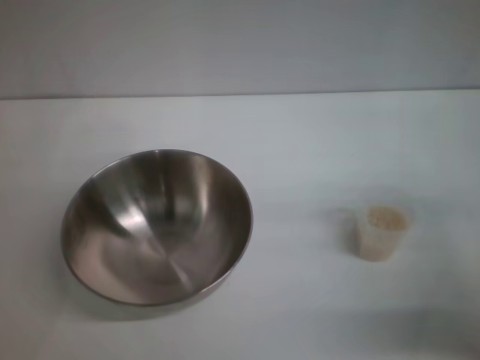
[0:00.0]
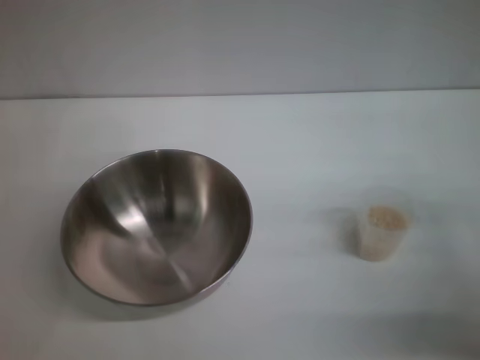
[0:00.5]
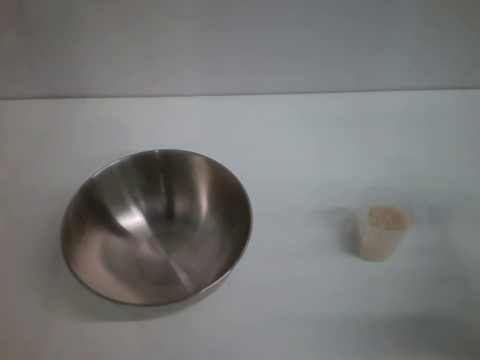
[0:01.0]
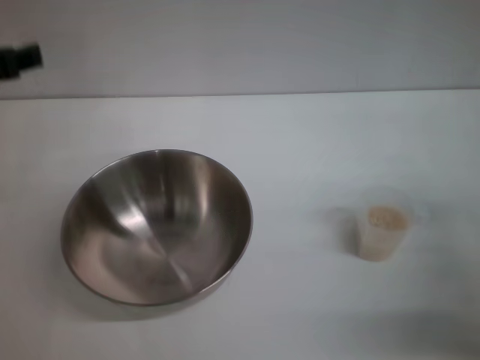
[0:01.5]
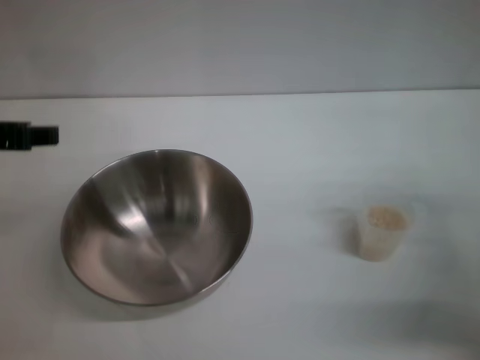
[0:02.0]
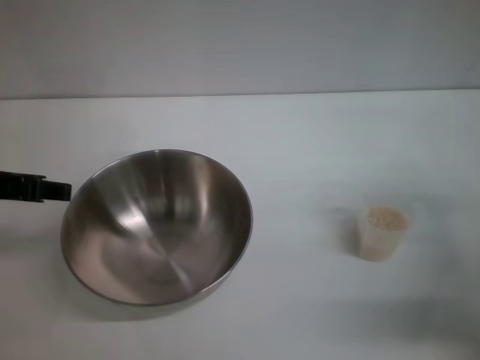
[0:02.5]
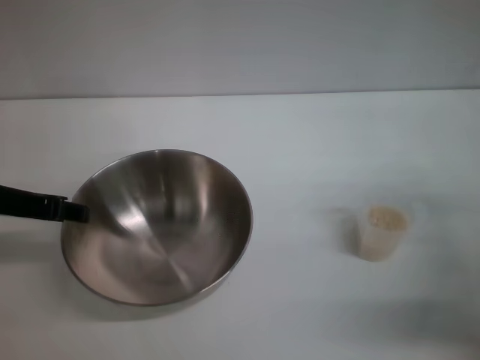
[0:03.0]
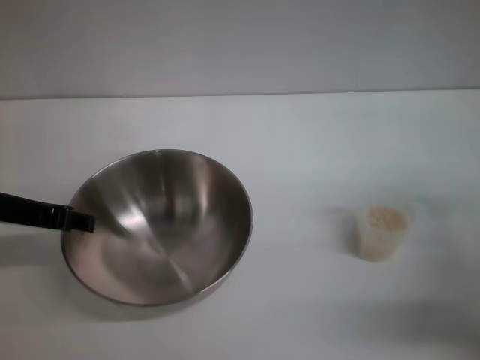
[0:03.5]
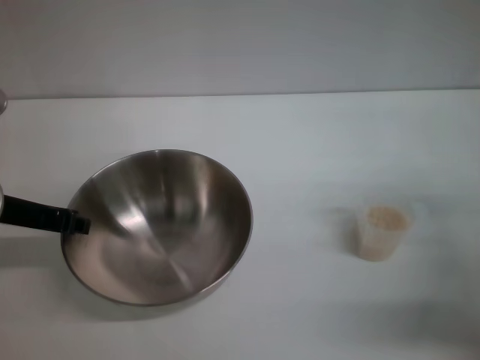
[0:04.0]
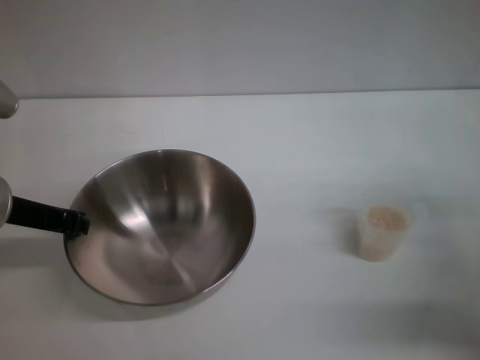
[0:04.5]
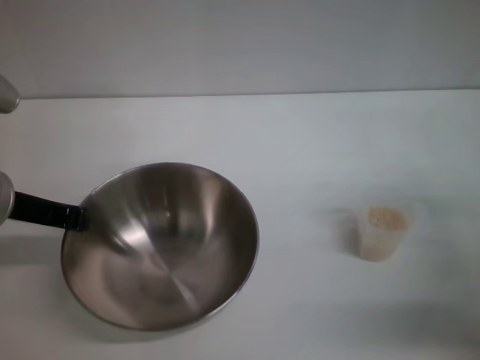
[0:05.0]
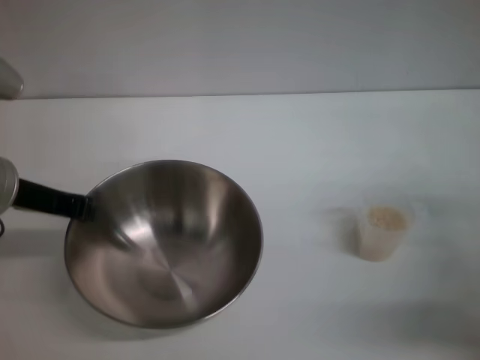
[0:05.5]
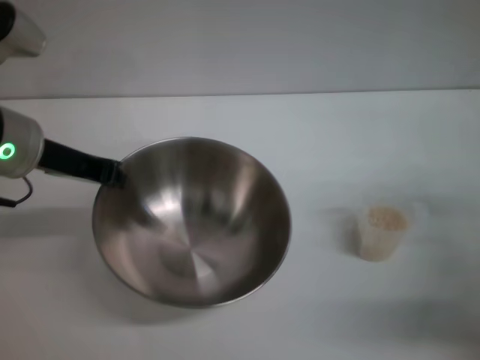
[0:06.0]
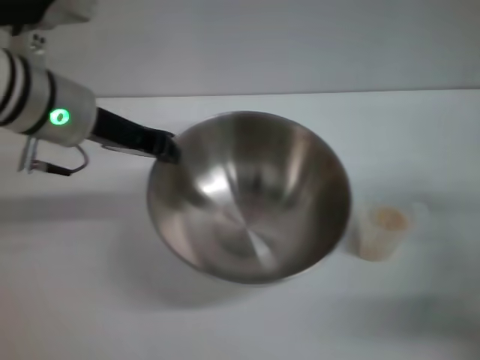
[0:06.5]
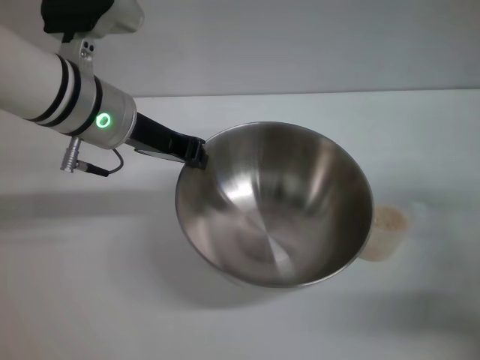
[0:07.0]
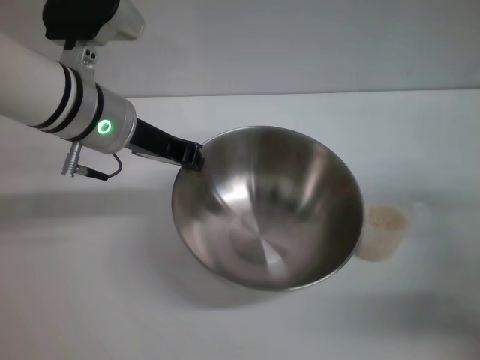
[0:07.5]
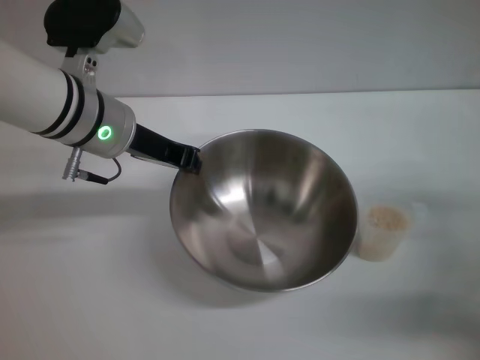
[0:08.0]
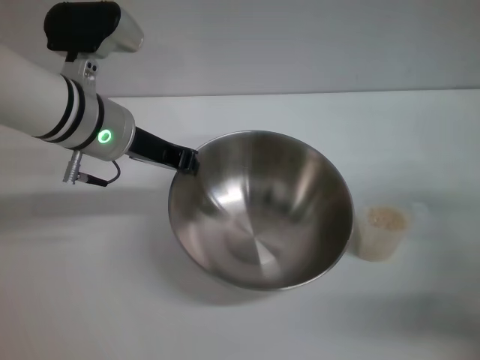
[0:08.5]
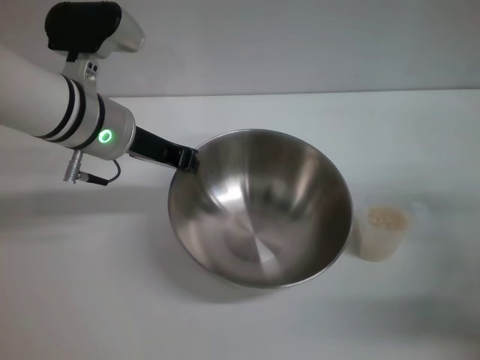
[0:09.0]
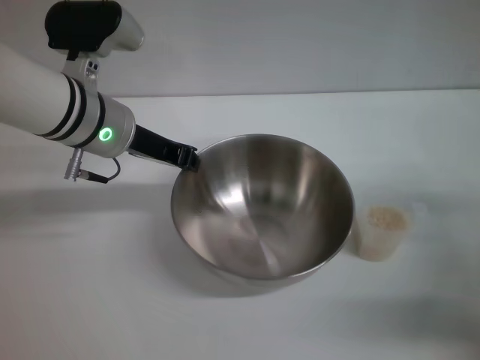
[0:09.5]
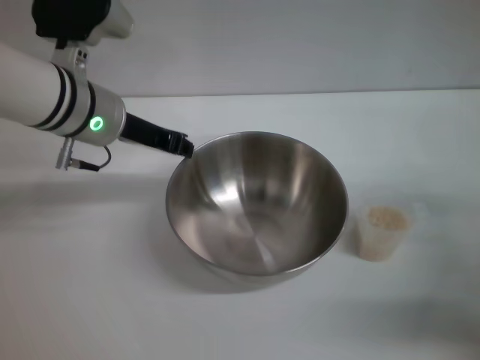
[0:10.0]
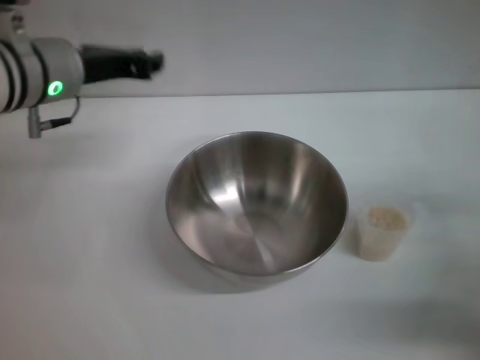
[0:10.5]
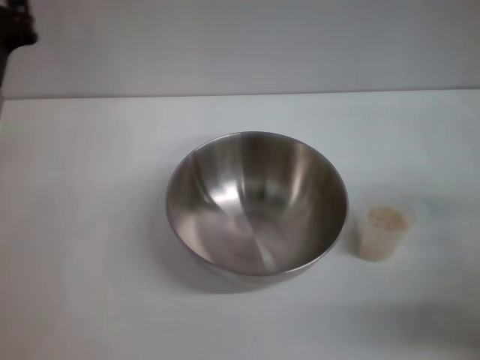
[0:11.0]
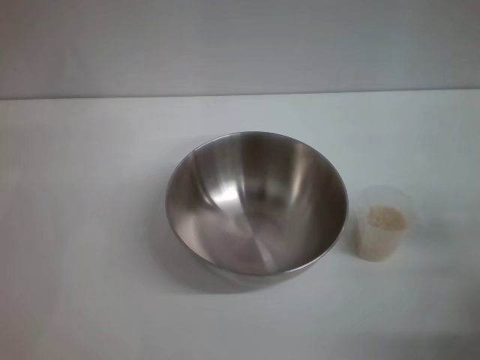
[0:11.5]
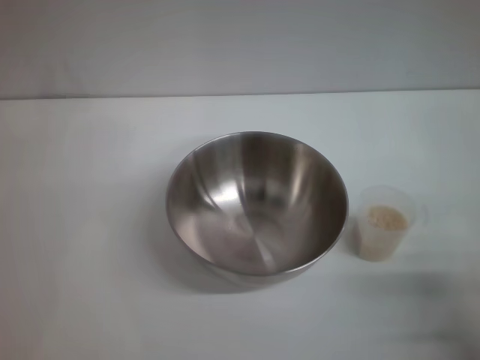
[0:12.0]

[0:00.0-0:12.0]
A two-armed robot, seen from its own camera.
Task of the whole recording: Place the bowl in the middle of the table with one hand and pour the rice from the grain cup into it with the other hand.
Step, 0.0 to 6.0 s: Pick up the bowl with the left gripper.
Step, 6.5 to 10.0 s: Place the bowl in the center of view with the left gripper.
0.0 to 2.0 s: The left gripper moves upward, about 15 cm.
2.0 to 4.0 s: The left gripper heads downward, covering some 10 cm.
4.0 to 6.0 s: The left gripper moves approximately 5 cm, and closes up.
6.0 to 8.0 s: The left gripper is displaced to the right by approximately 5 cm.
8.0 to 10.0 s: There are only small adjustments of the grippers.
10.0 to 12.0 s: The left gripper moves to the left, backward and downward, roughly 20 cm. Meanwhile the right gripper is displaced backward and downward by roughly 15 cm.

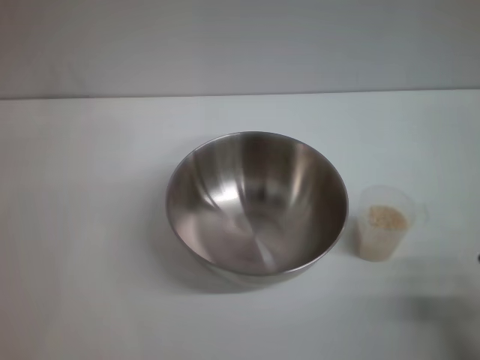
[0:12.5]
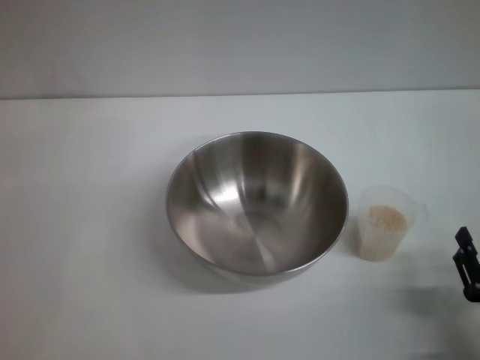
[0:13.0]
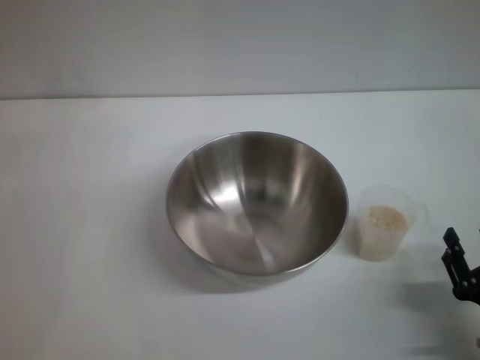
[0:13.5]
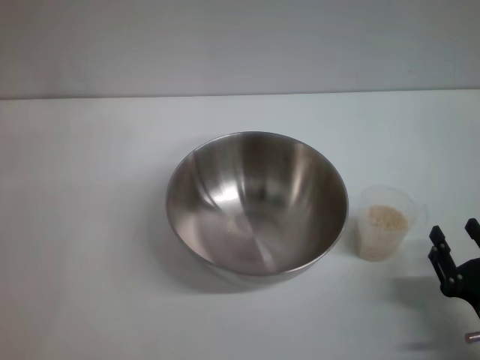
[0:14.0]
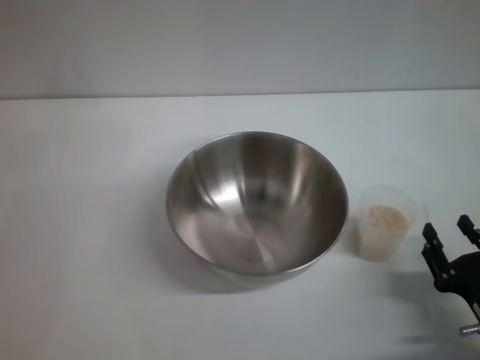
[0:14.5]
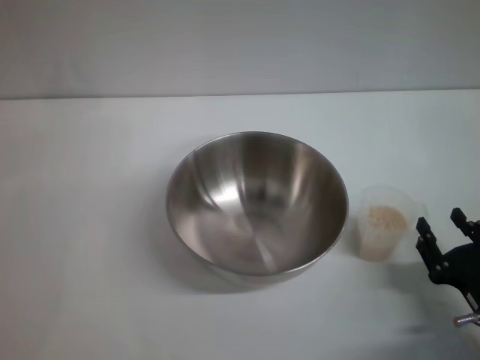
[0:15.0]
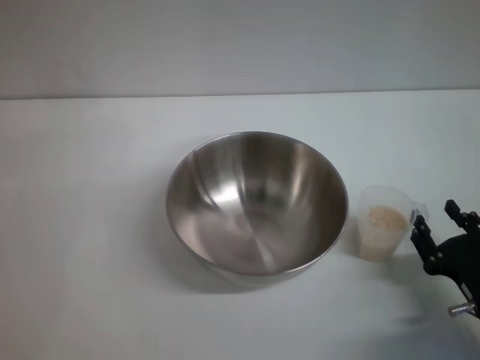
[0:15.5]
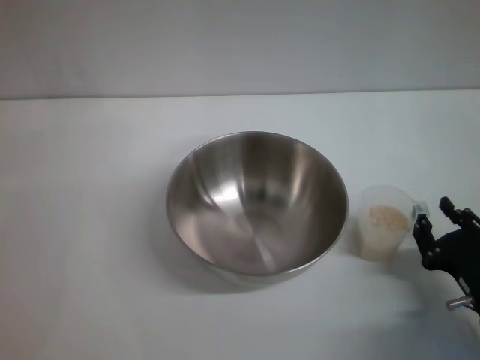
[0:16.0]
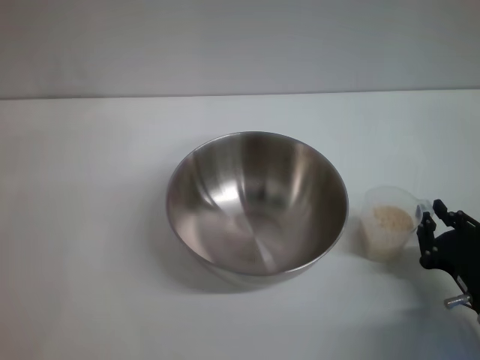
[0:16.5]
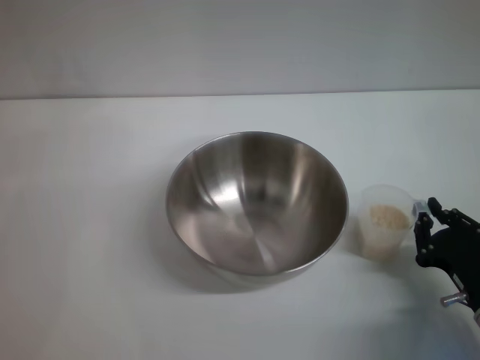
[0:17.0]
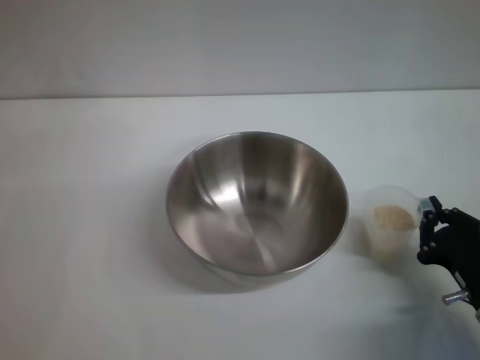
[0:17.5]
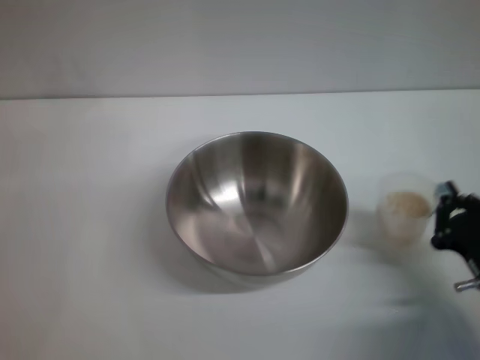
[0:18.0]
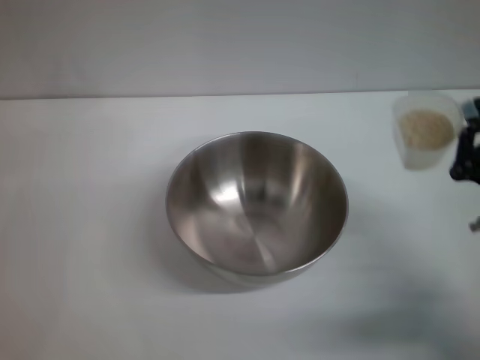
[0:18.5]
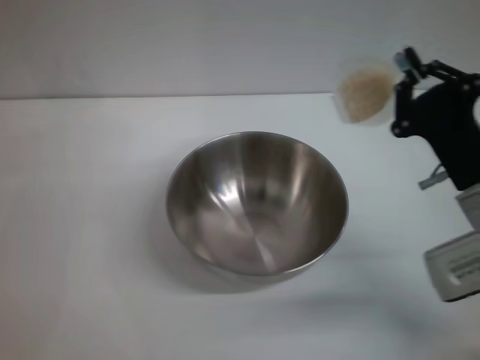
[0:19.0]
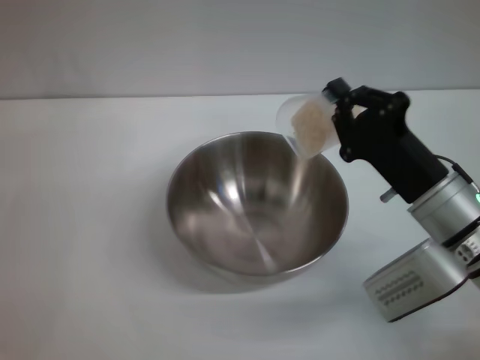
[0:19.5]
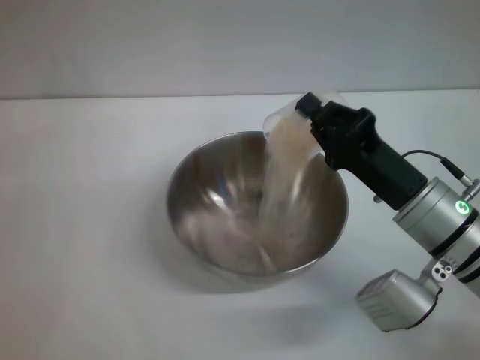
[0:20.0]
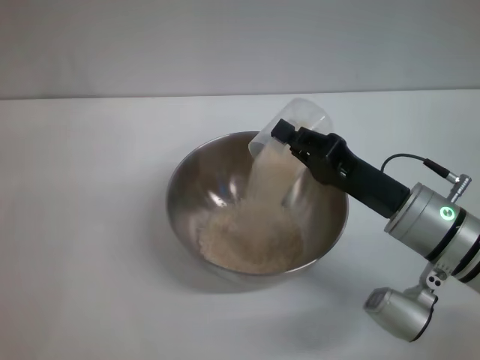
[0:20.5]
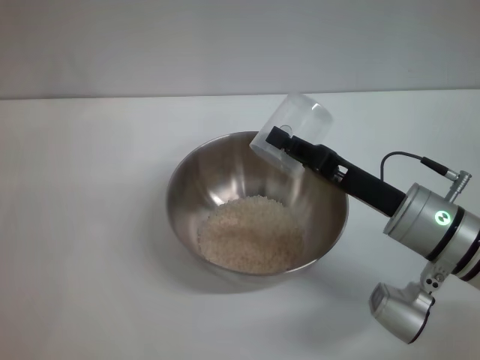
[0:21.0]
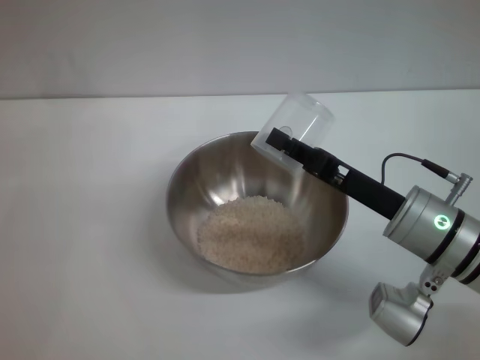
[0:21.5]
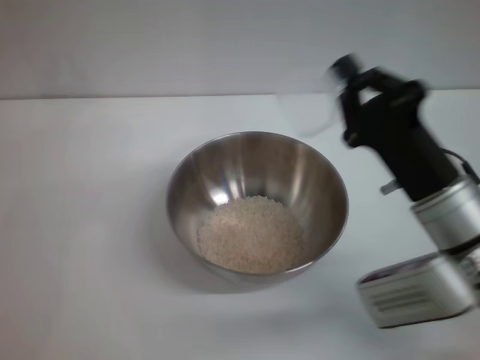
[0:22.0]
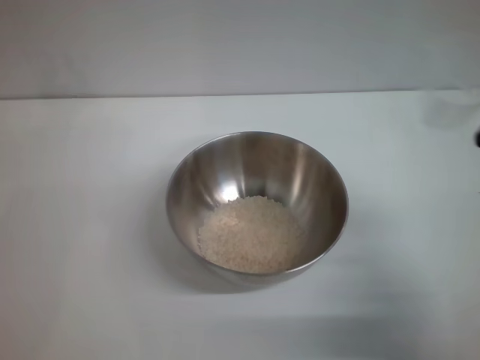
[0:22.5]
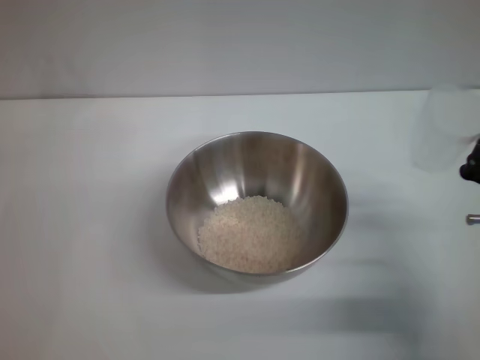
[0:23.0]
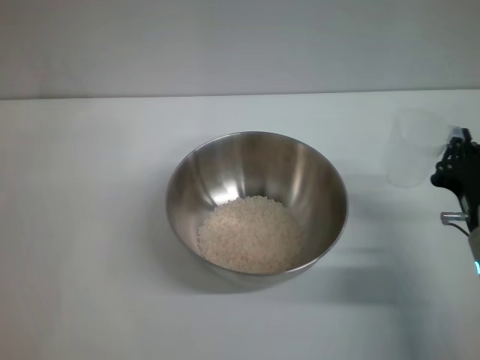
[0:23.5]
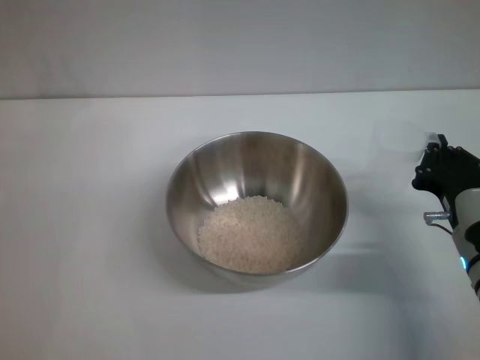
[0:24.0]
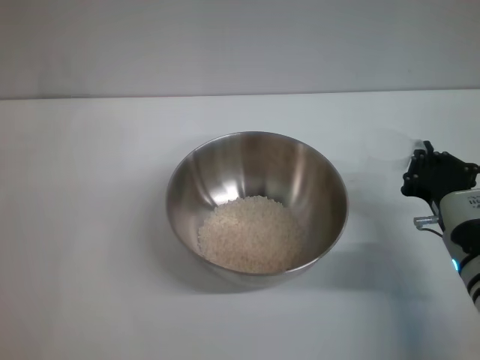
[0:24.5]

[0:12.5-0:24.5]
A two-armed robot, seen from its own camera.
Task of the whole recording: Place the bowl in the middle of the table with one hand and pour the rice from the grain cup into it with the other hand.
Step, 12.5 to 18.0 s: Pick up the cup with rice in it with the right gripper.
Step, 18.5 to 21.5 s: Pour the rice from the cup into the bowl with the right gripper.
12.5 to 14.5 s: The grippers make only small movements.
14.5 to 16.5 s: The right gripper closes its fingers.
16.5 to 18.5 s: The right gripper is displaced upward by some 5 cm.
18.5 to 20.5 s: The right gripper travels to the left and forward by about 10 cm.
20.5 to 22.5 s: The right gripper heads backward and to the right, covering roughly 10 cm.
22.5 to 24.5 s: The right gripper travels downward by about 5 cm.

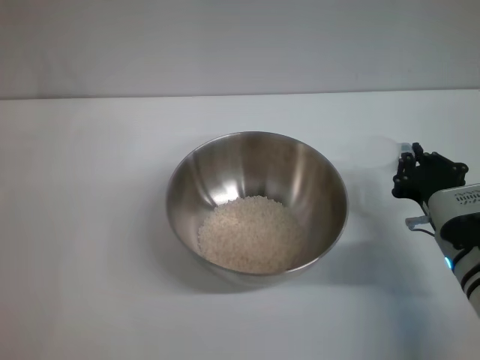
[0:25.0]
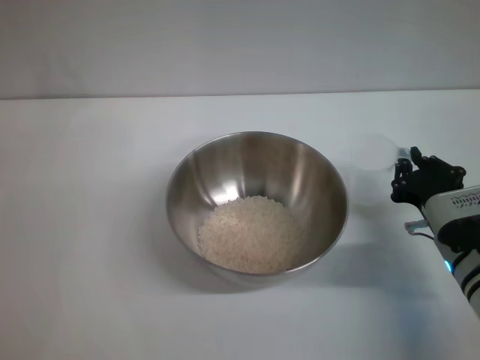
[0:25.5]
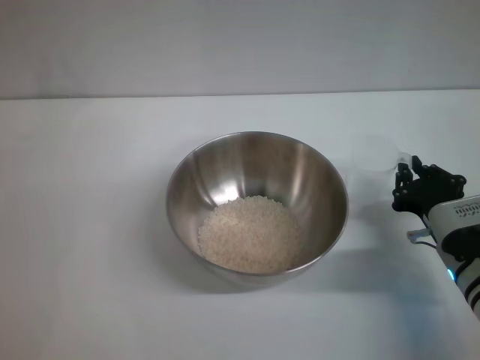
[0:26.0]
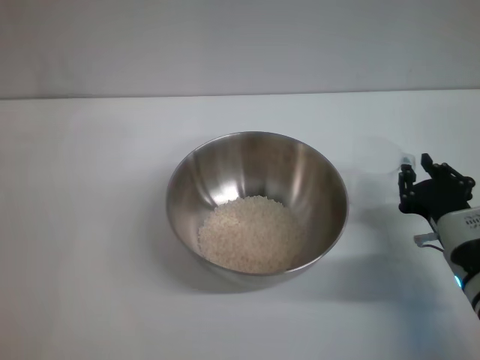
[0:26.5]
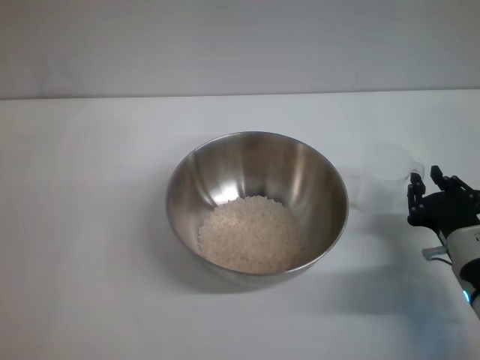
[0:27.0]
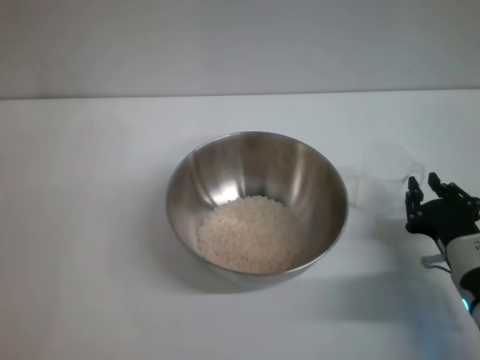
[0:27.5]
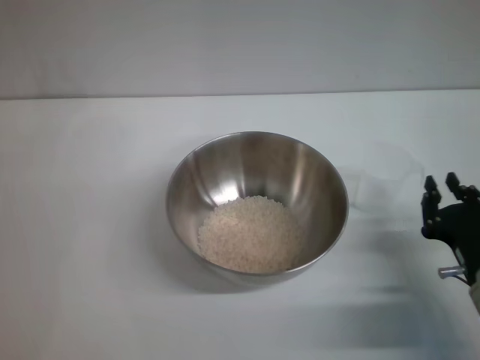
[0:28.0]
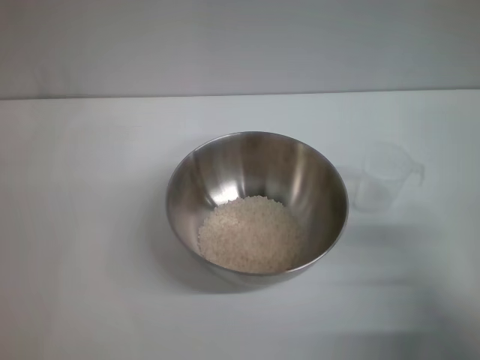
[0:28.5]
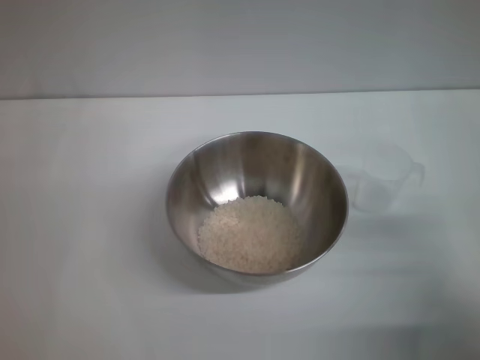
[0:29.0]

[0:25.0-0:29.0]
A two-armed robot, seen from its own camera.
Task of the whole recording: Place the bowl in the middle of the table with one hand and pour the rice from the grain cup into it with the other hand.
Step, 25.0 to 27.5 s: Place the cup on the table with the right gripper.
25.0 to 27.0 s: The right gripper opens its fingers.
27.0 to 29.0 s: The right gripper shifts approximately 10 cm to the right and upward, and opens up.
